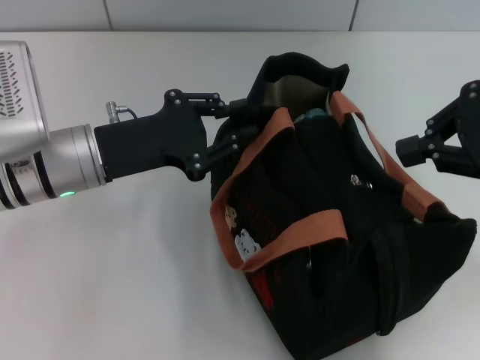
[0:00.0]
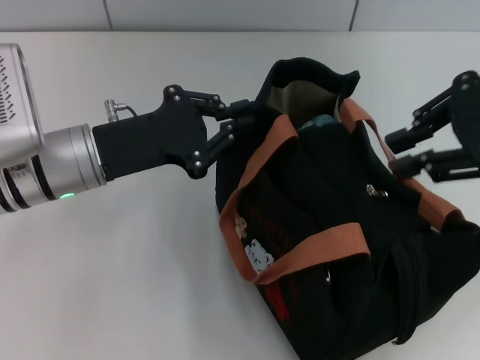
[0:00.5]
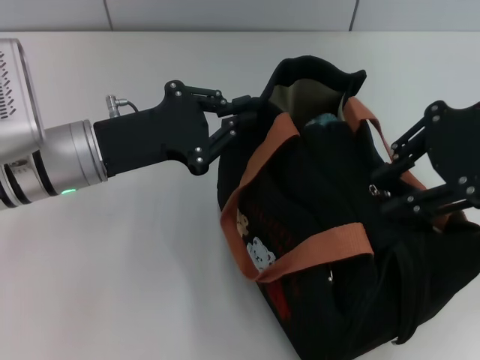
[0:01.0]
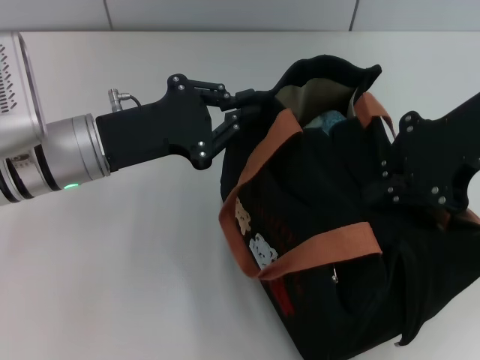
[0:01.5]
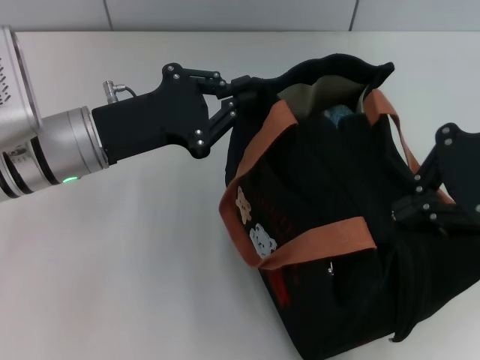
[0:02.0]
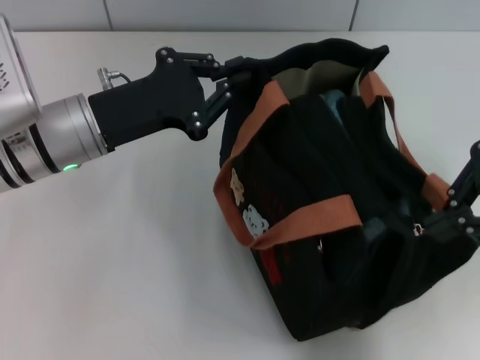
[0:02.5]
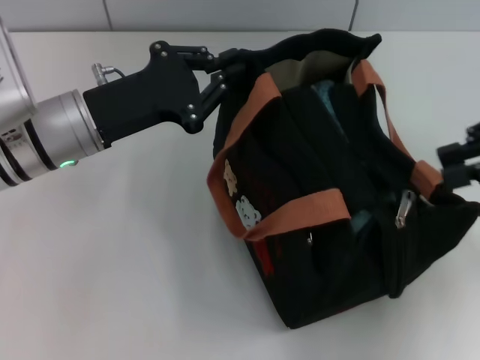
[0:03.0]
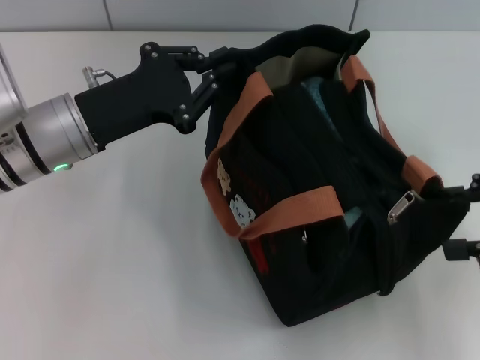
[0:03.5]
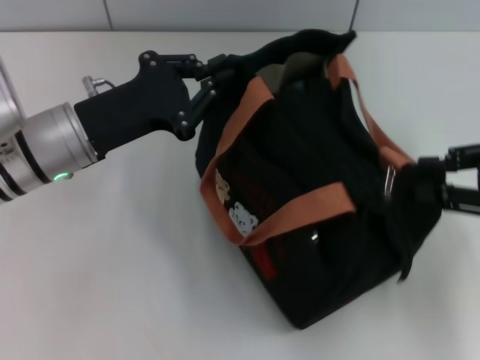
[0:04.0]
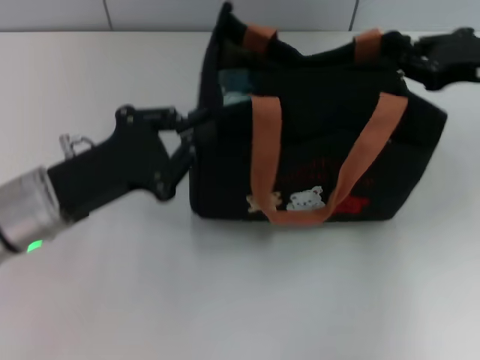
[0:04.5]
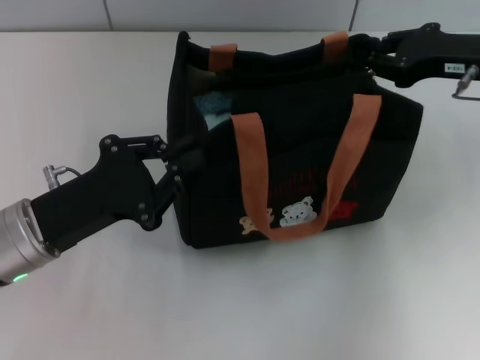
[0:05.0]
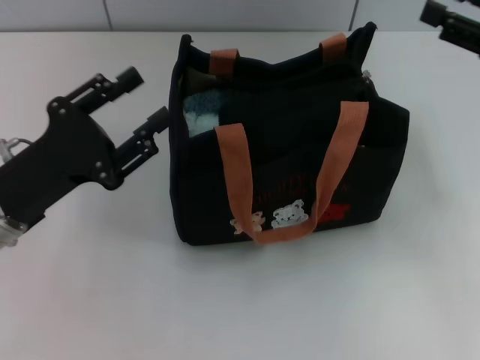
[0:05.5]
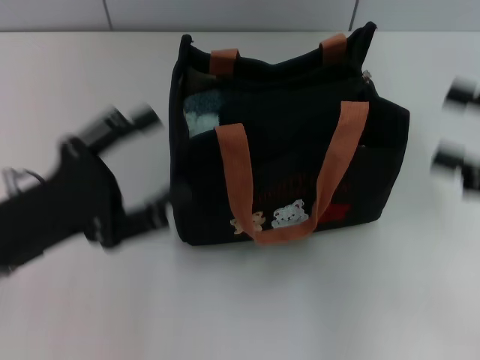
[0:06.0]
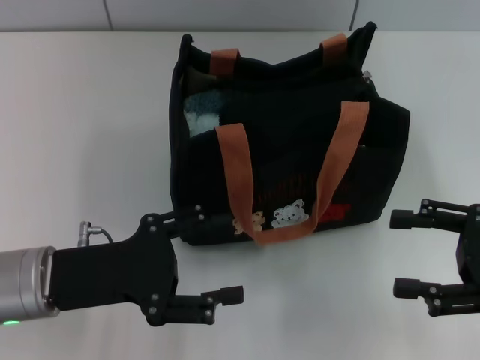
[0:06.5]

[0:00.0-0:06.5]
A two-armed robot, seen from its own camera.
Step, 0:00.0 to 0:03.0: Pull open the zipper with your right hand.
Step, 0:03.5 to 0:05.0: Grab the bag with your left hand.
0:00.0 to 0:02.0: The left gripper closes up.
0:02.0 to 0:04.5: The left gripper goes approximately 5 cm backward. The right gripper moves downward and forward, approximately 10 cm, and opens, then closes again.
0:04.5 to 0:06.5: The left gripper opens up; the right gripper heads backward, covering approximately 15 cm, and opens its fingers.

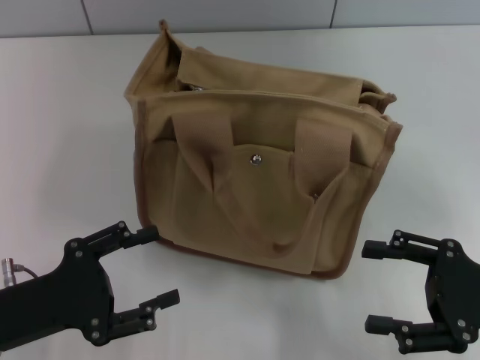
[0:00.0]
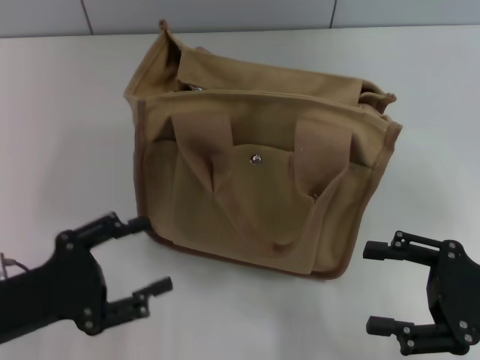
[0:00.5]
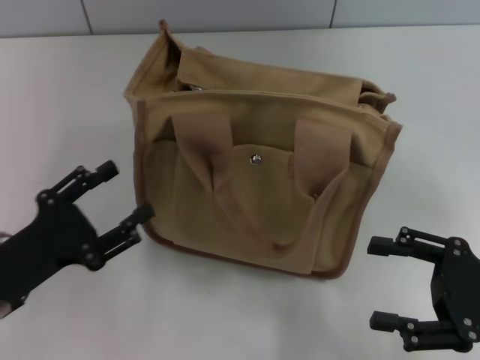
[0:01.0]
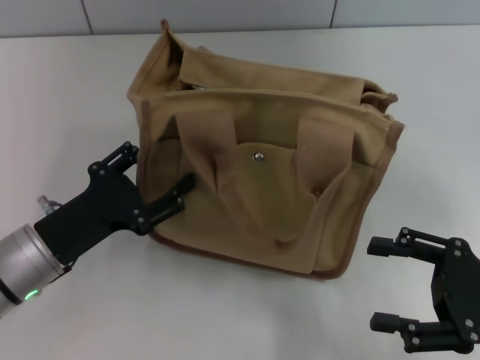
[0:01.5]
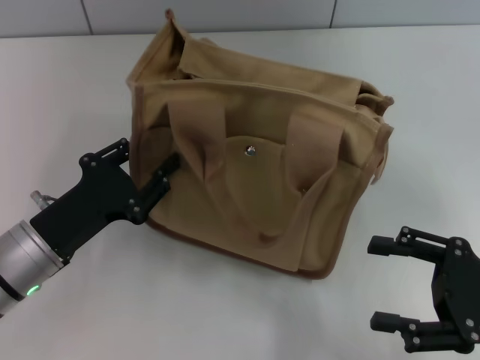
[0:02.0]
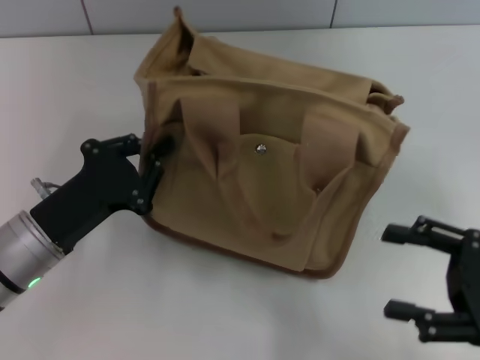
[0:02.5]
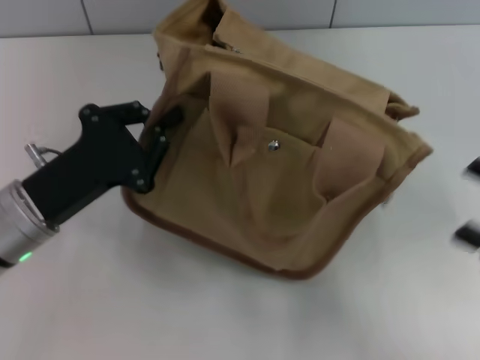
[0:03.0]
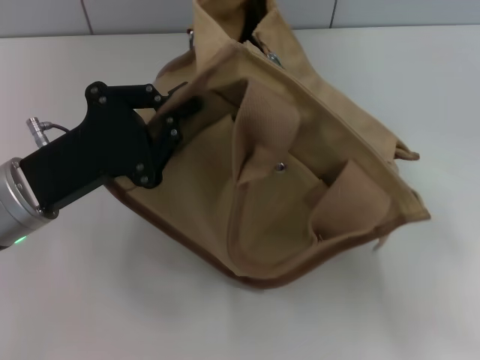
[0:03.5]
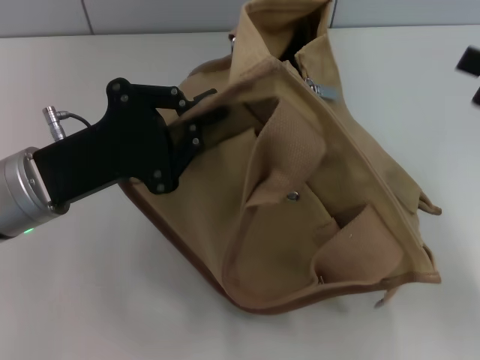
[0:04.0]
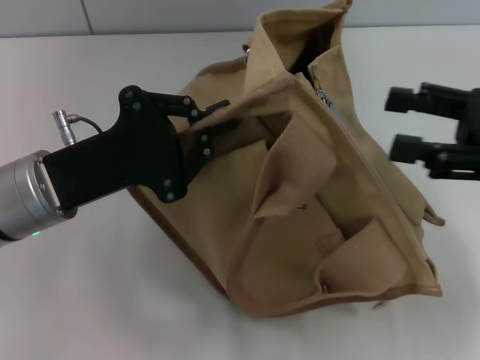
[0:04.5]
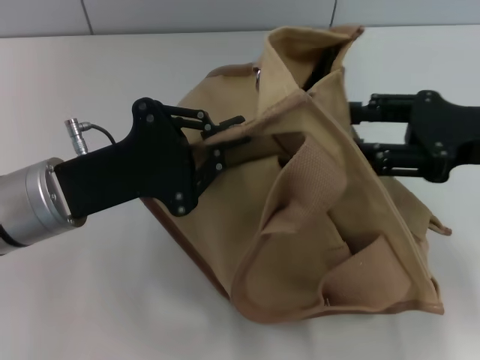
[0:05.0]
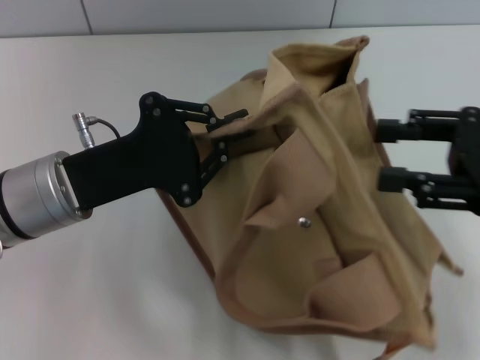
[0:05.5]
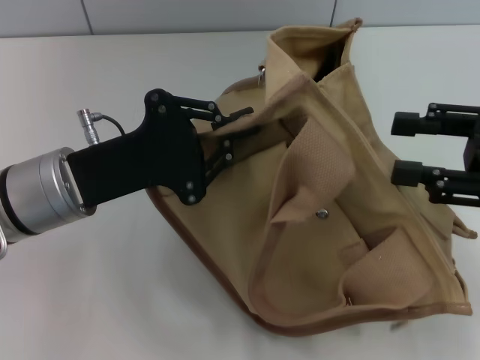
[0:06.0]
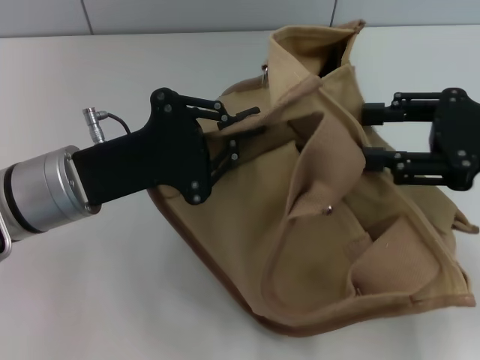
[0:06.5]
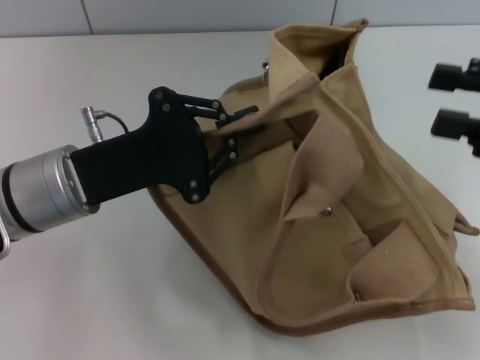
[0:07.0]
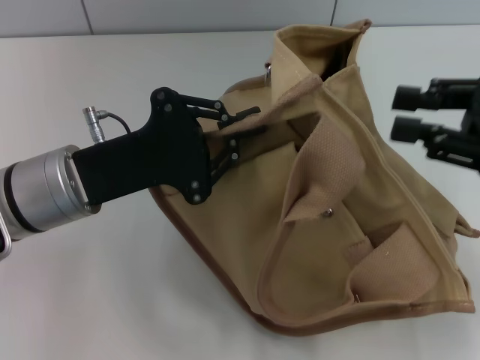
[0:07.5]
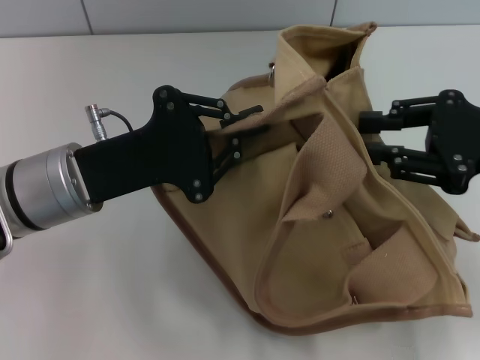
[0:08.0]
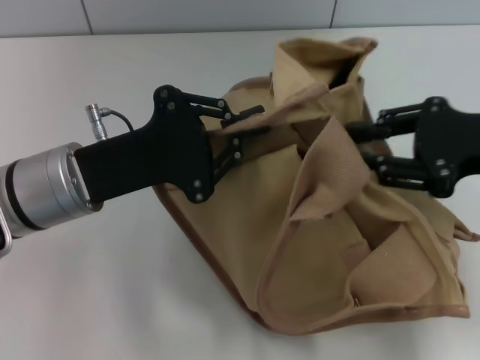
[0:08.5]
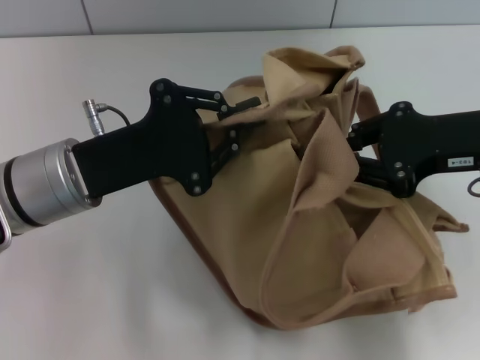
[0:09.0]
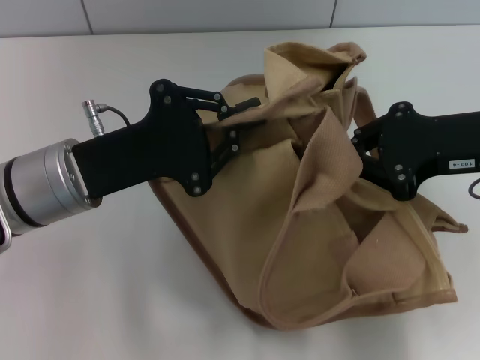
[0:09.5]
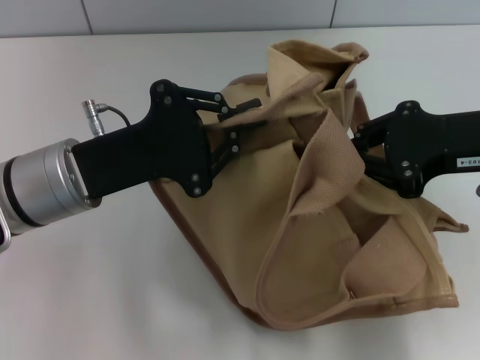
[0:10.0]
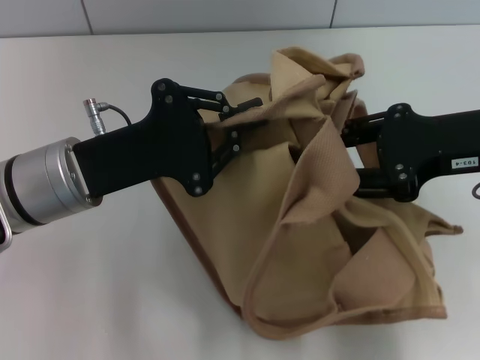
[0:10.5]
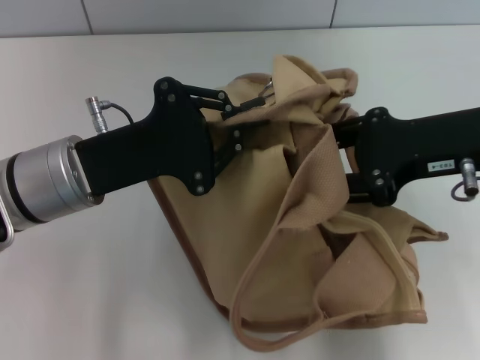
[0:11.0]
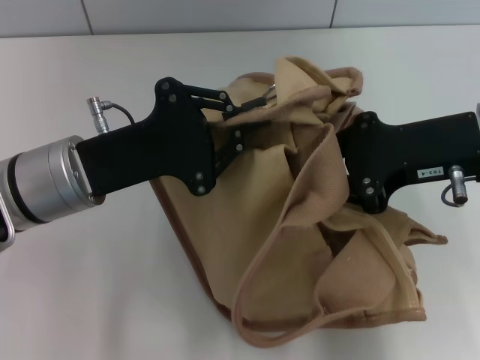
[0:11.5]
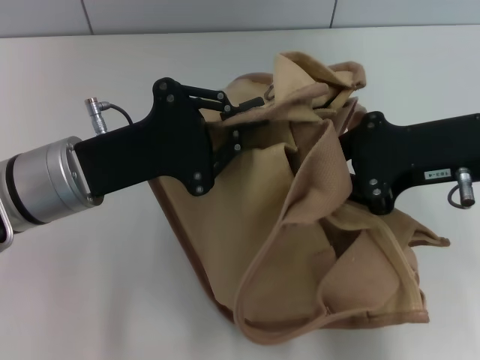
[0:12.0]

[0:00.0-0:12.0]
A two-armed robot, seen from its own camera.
0:00.0 to 0:02.0: The left gripper heads forward, covering approximately 5 cm.
0:02.0 to 0:04.0: The left gripper goes about 10 cm upward, and closes up. Meanwhile the right gripper moves upward and forward, roughly 10 cm.
0:06.0 to 0:08.0: There are only small adjustments of the grippers.
0:08.0 to 0:10.0: The right gripper closes up.
0:10.0 to 0:12.0: The right gripper opens, then closes again.

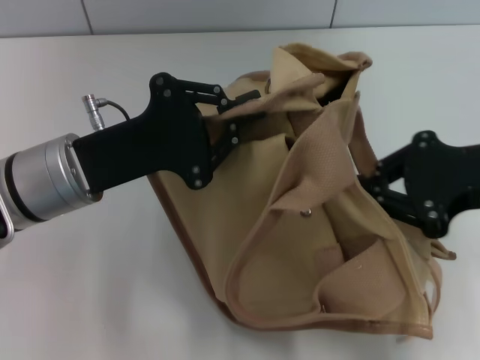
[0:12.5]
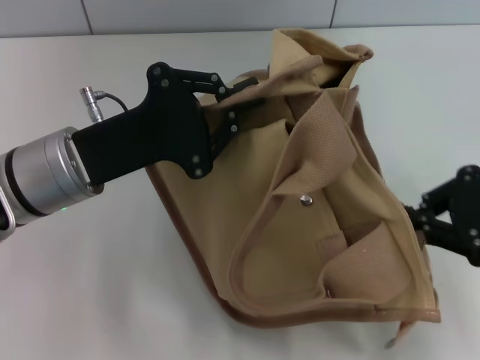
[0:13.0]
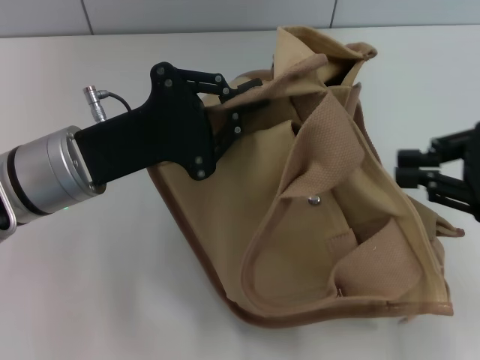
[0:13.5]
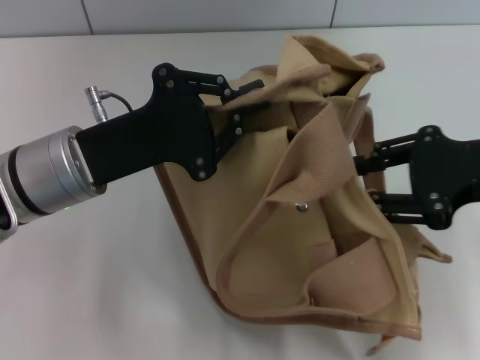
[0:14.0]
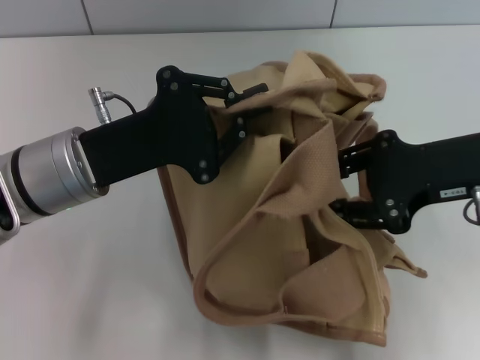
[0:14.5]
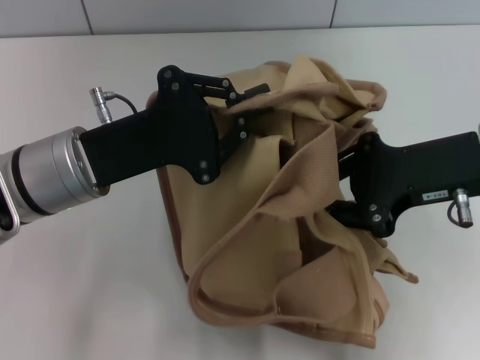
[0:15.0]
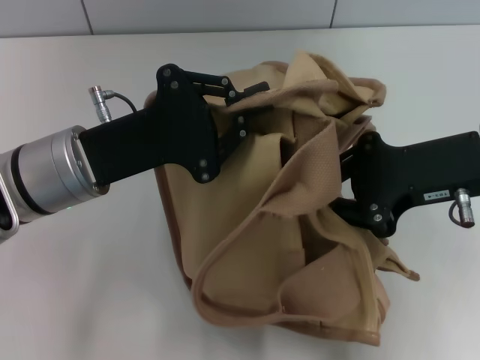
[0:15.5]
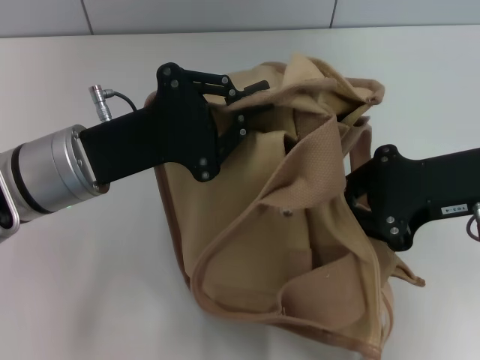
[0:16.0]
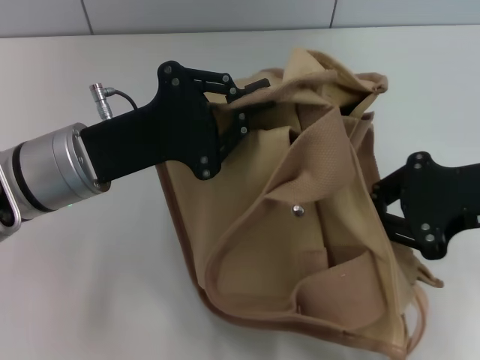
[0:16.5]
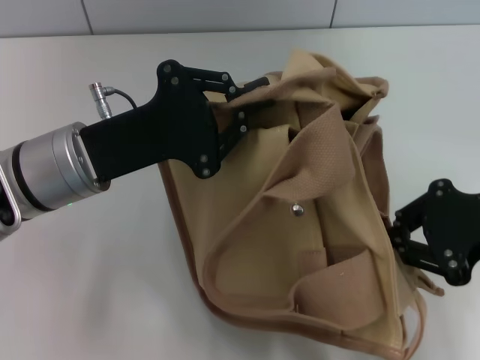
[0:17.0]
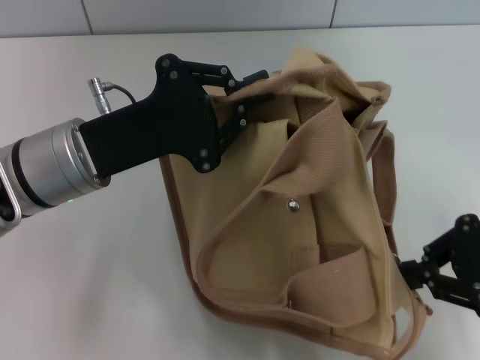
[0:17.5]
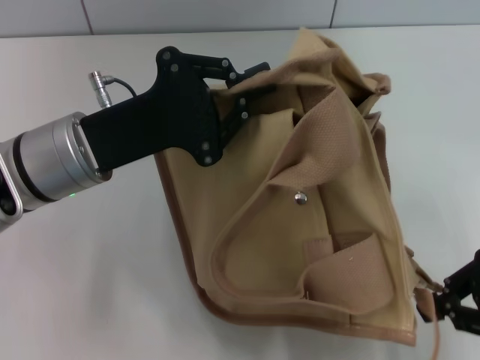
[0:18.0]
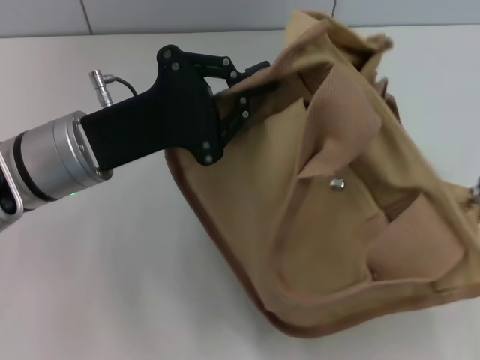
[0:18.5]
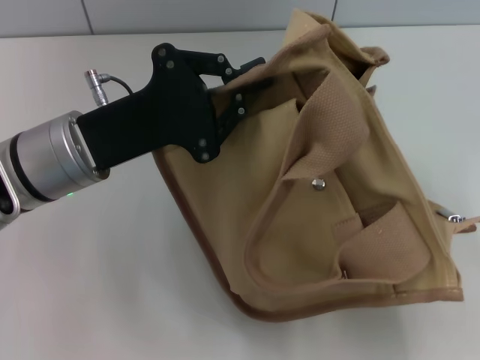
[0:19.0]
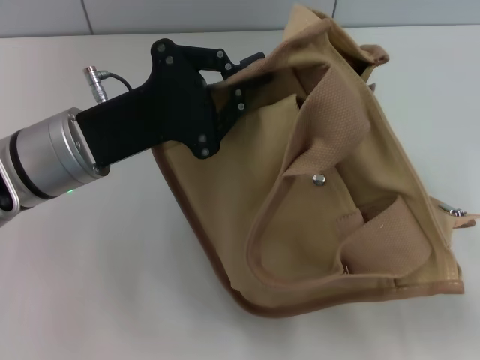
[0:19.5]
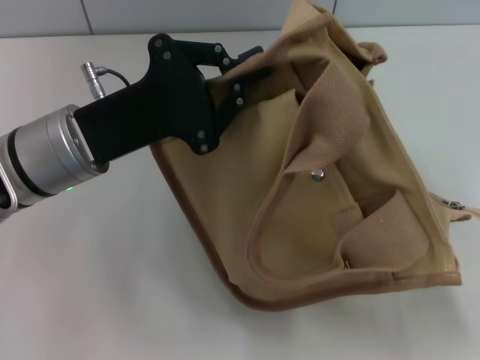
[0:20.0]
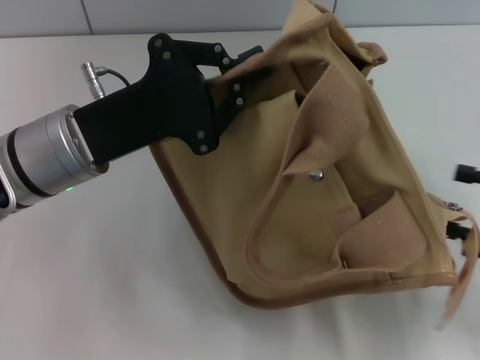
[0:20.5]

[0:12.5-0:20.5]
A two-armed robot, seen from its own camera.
Step, 0:12.5 to 0:20.0: Pull open the zipper with your right hand.
0:12.5 to 0:14.5: The right gripper opens its fingers.
0:14.5 to 0:16.5: The right gripper closes up.
0:16.5 to 0:18.5: The right gripper shifts approximately 10 cm to the right.
0:18.5 to 0:20.5: The right gripper moves downward, some 5 cm, and opens its fingers.
